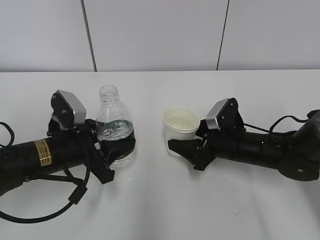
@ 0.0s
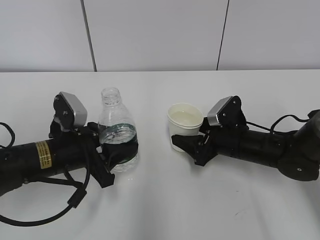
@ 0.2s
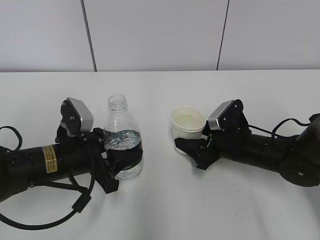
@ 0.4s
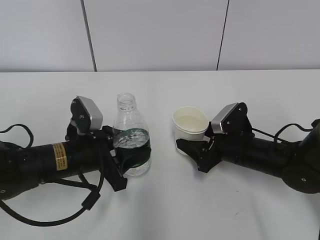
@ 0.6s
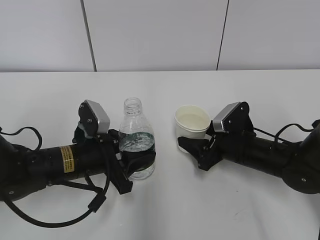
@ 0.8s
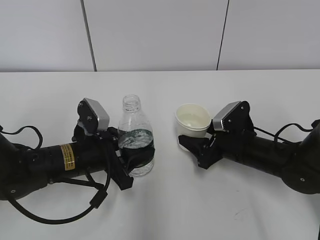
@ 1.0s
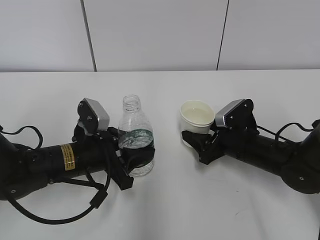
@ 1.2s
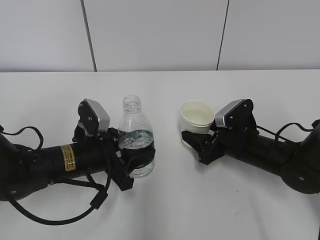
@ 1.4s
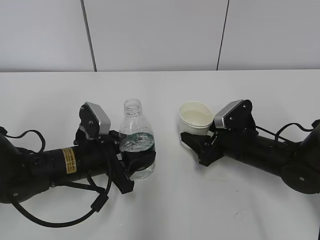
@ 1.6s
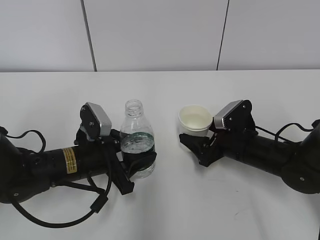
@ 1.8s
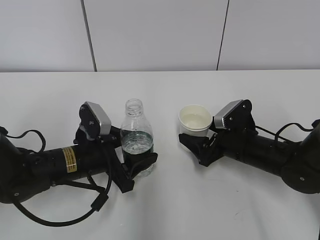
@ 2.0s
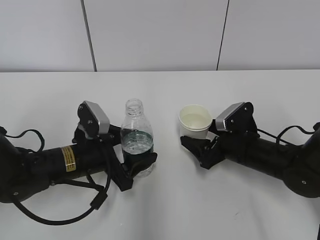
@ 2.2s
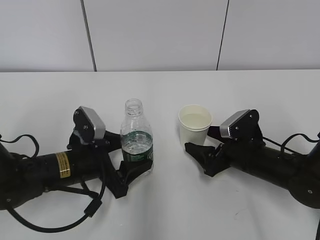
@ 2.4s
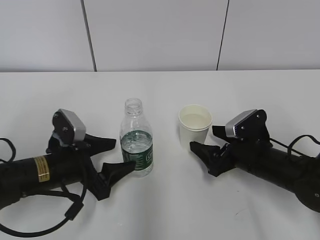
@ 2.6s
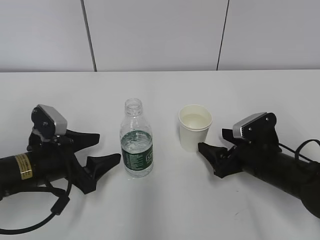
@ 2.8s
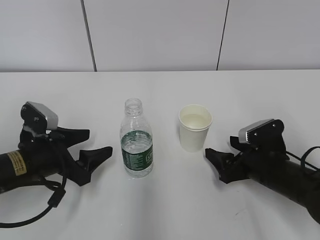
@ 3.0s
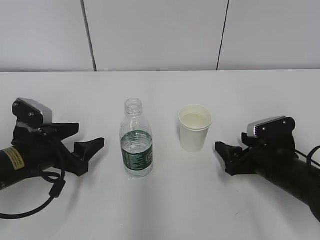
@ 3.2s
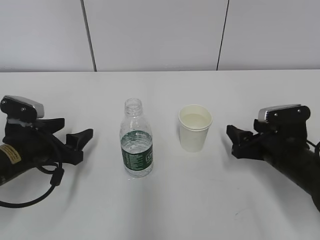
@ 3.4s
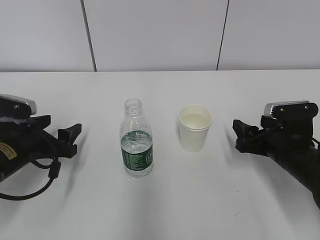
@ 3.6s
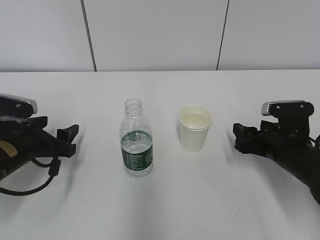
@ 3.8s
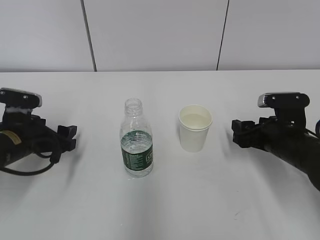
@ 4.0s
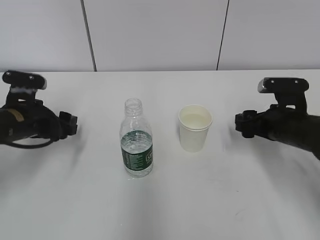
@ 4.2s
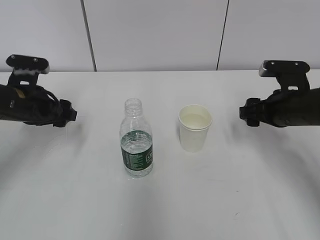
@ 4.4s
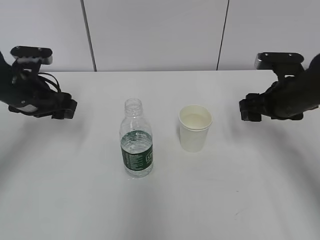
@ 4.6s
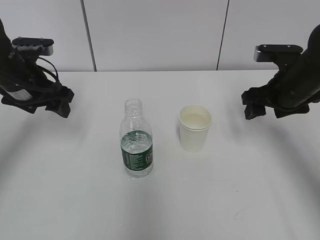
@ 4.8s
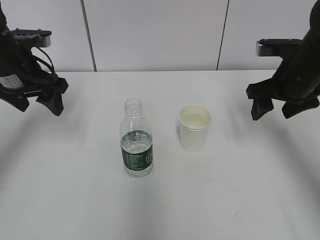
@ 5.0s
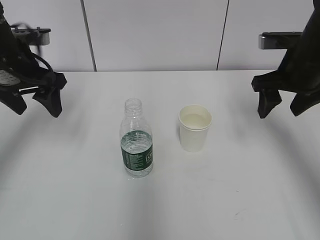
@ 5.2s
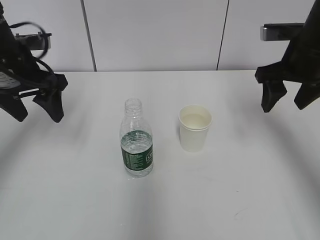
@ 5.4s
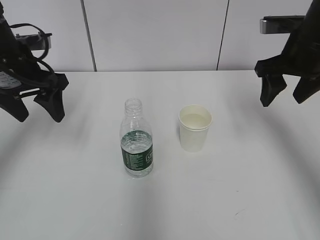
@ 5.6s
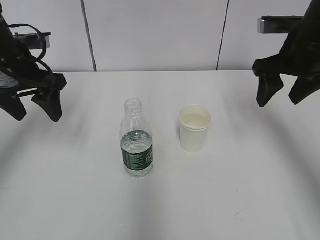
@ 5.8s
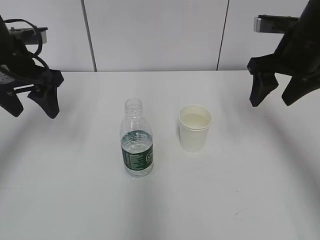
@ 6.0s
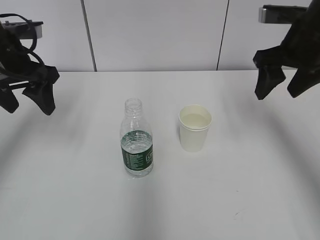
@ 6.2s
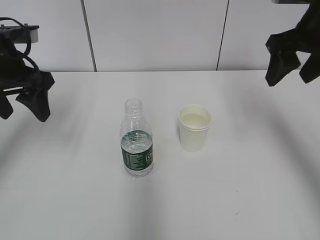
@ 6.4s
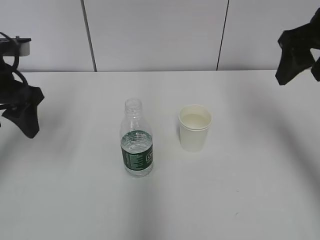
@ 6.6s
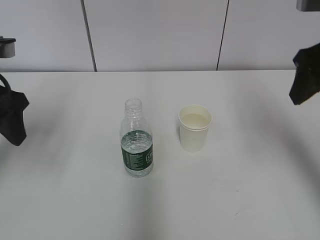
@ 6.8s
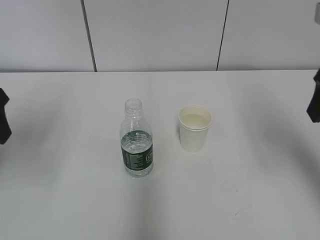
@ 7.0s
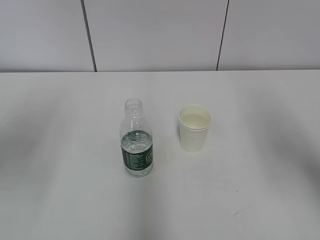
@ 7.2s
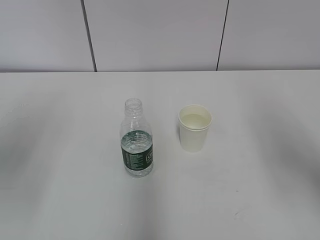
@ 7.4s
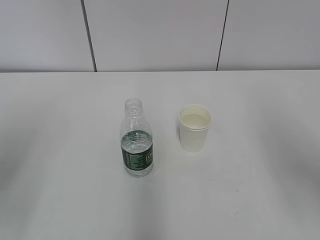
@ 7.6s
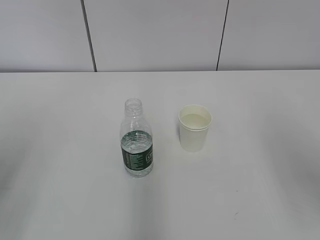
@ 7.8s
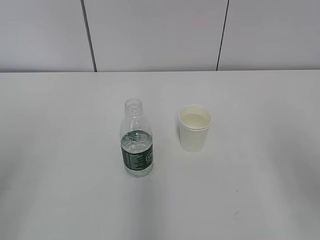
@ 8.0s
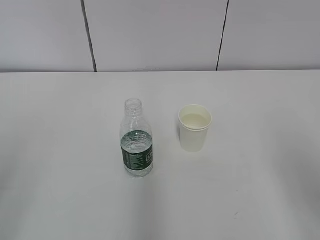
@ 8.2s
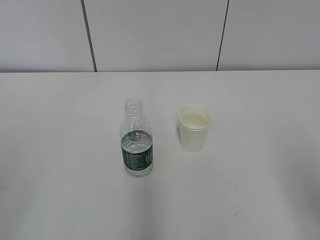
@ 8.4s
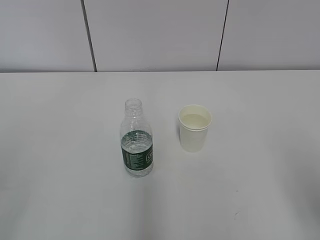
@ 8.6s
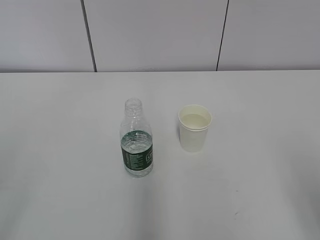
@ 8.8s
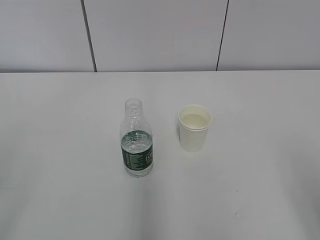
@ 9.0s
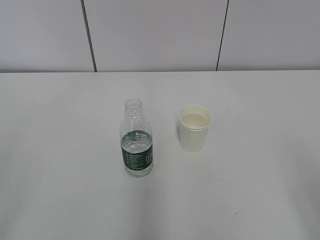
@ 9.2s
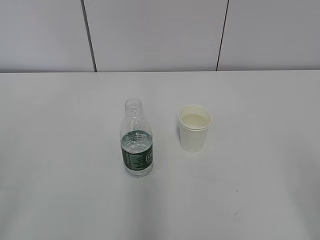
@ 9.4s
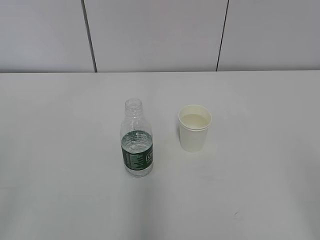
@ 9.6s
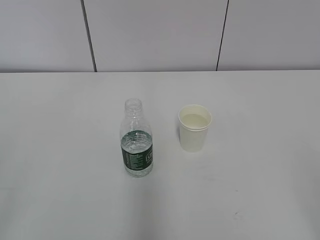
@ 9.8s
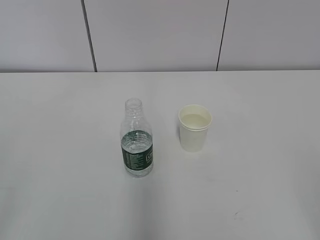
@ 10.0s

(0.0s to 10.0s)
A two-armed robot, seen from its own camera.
0.0s - 1.4s: The grippers make only small movements.
1.4s - 2.8s: The left gripper travels to the left by approximately 5 cm, and opens its fingers. The right gripper opens.
2.8s - 4.2s: The left gripper moves forward, roughly 5 cm; the right gripper shifts some 5 cm upward, and closes.
4.2s - 5.8s: Both grippers travel together upward, roughly 15 cm.
5.8s - 7.2s: The right gripper moves backward, about 15 cm, while the left gripper shifts about 15 cm backward and upward.
7.2s - 8.6s: The right gripper moves backward and downward, about 15 cm.

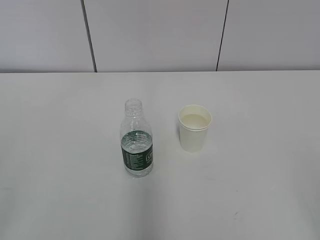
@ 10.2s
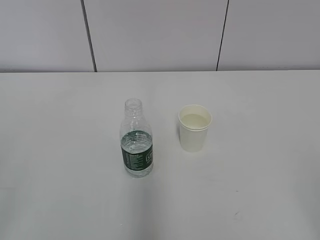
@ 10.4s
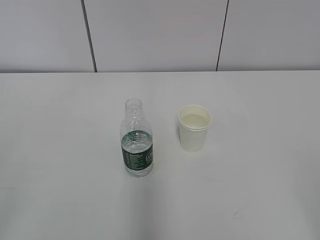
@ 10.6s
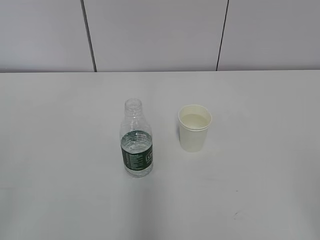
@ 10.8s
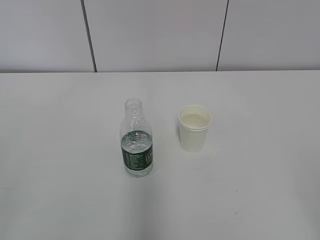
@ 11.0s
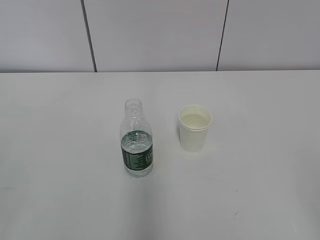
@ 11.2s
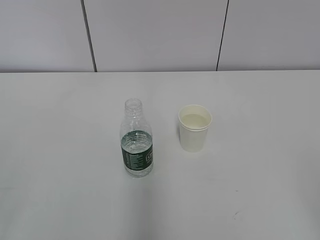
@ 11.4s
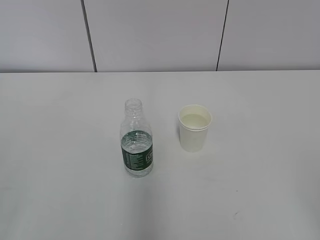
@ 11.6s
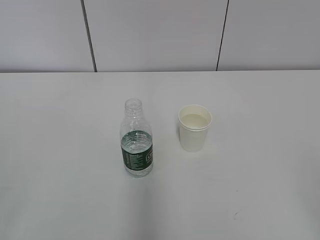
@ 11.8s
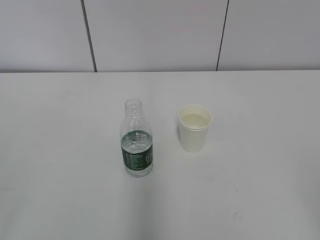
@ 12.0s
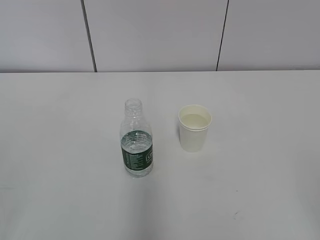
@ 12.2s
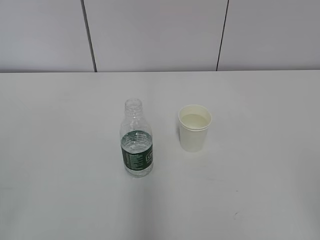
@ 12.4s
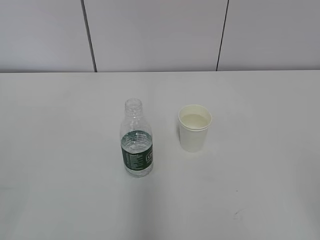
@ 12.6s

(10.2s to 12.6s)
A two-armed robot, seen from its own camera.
11.4s - 12.6s: Both grippers stay put.
